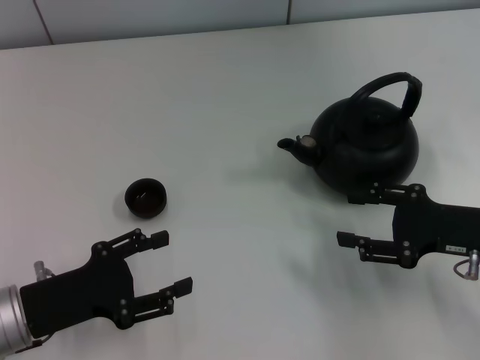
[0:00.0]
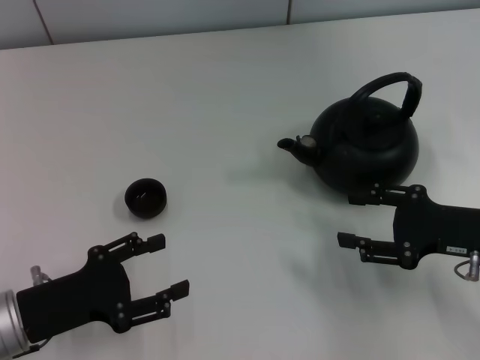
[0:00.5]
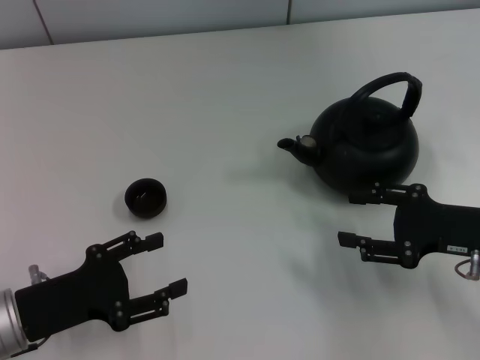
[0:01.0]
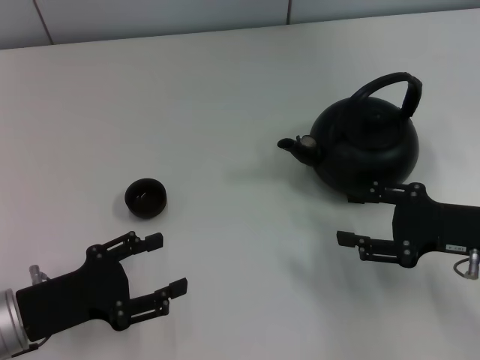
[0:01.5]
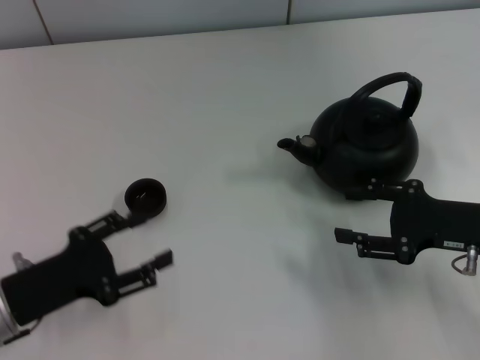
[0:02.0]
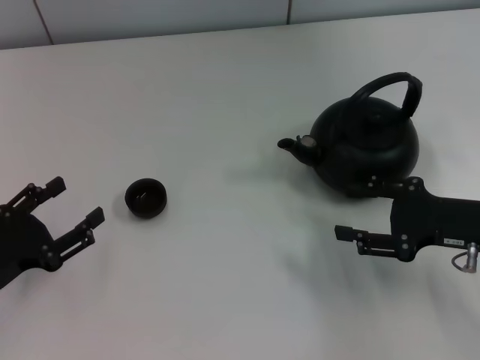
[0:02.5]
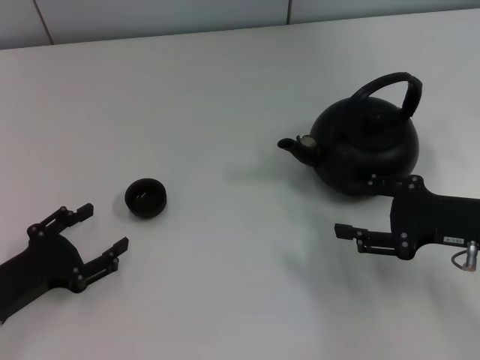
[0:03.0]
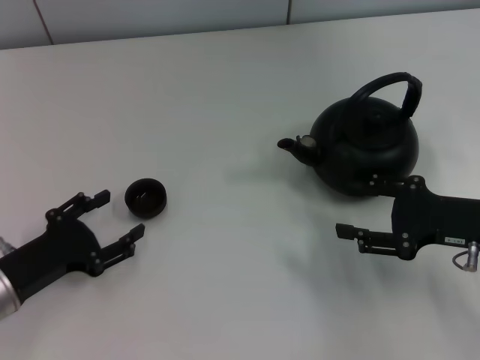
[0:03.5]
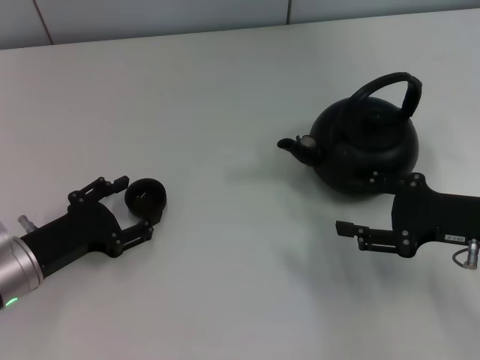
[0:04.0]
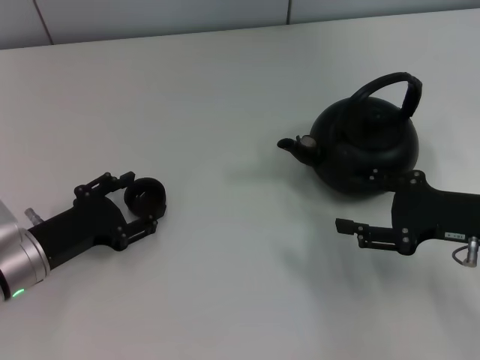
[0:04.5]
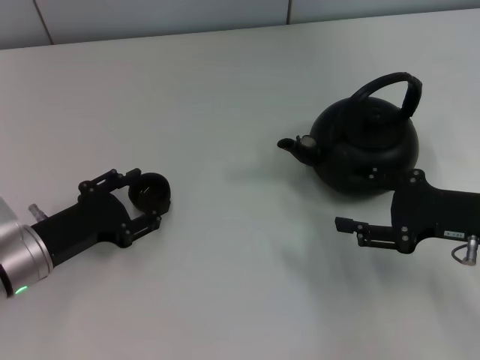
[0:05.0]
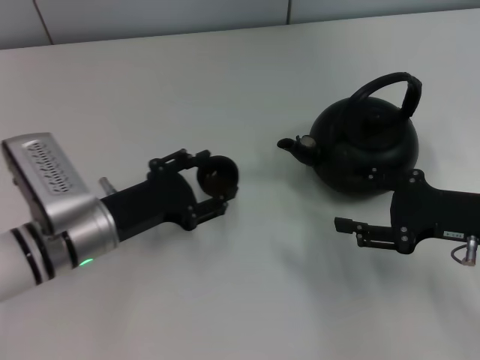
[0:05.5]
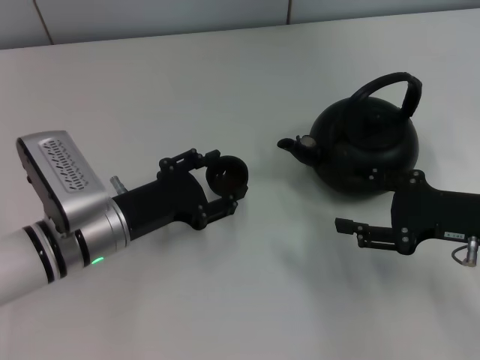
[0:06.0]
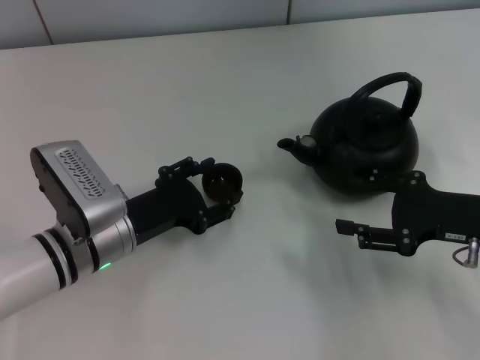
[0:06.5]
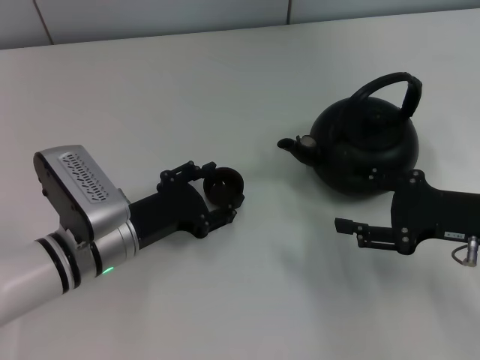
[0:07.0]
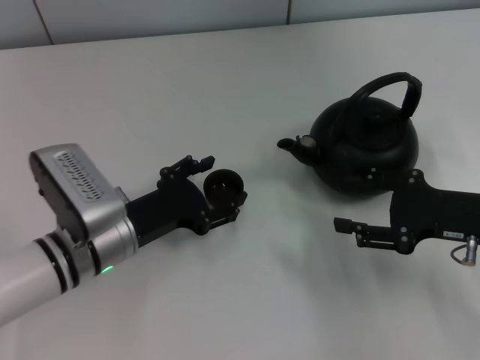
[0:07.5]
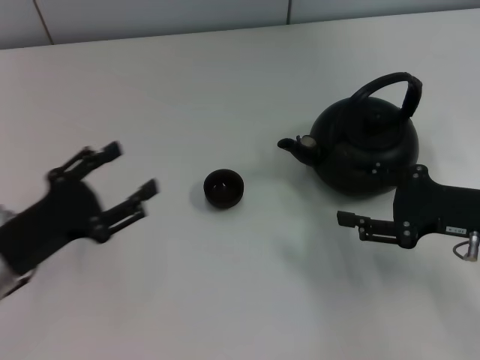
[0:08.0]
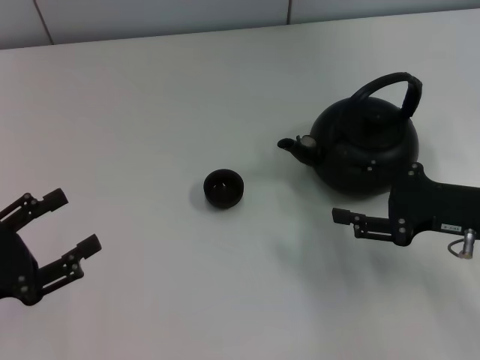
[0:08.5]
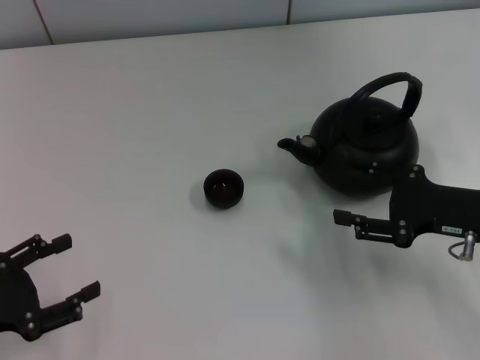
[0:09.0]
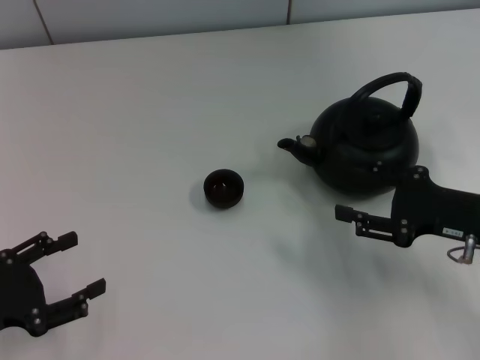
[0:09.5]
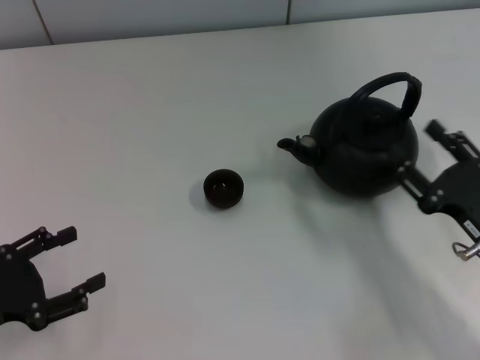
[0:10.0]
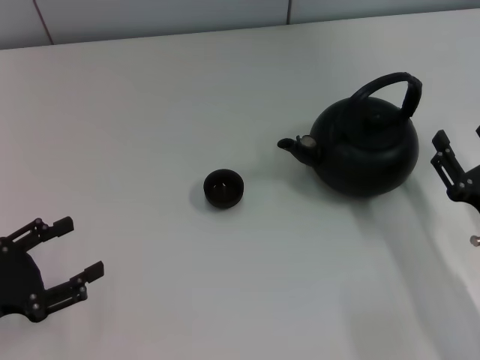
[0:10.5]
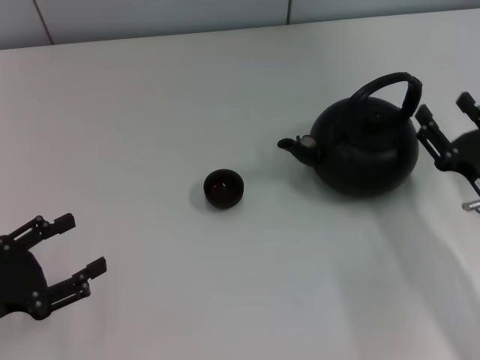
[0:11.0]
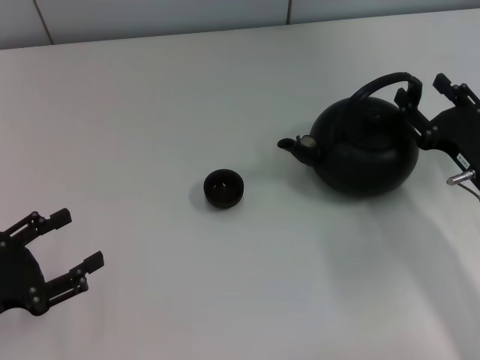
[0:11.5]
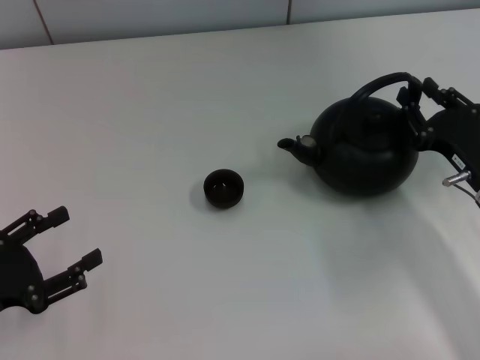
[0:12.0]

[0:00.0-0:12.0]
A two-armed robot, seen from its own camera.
Task of the whole recording: Grasp the handle of the teapot with one hand and pour tea into the teacup.
Step, 0:00.0 to 0:05.0: Pick up the teacup with the left gripper.
Step, 0:05.5 to 0:07.5: Place the teacup in the center of view with the left gripper.
0:00.0 to 0:02.0: There are only small adjustments of the grippers.
0:02.0 to 0:04.0: The left gripper moves roughly 5 cm.
0:04.0 to 0:06.0: The left gripper goes approximately 10 cm to the right.
0:06.0 to 0:08.0: The left gripper shifts approximately 10 cm to the left and backward.
0:08.0 to 0:10.0: The left gripper is displaced to the left by about 5 cm. The right gripper moves backward, approximately 5 cm.
0:10.0 to 0:12.0: The right gripper heads forward, covering approximately 5 cm.

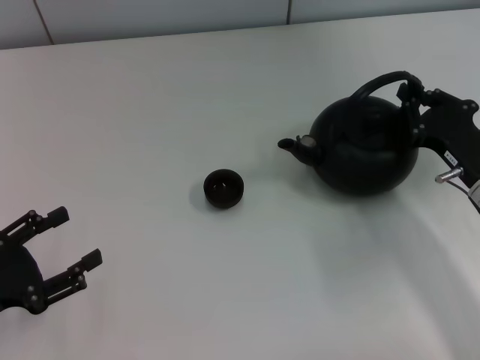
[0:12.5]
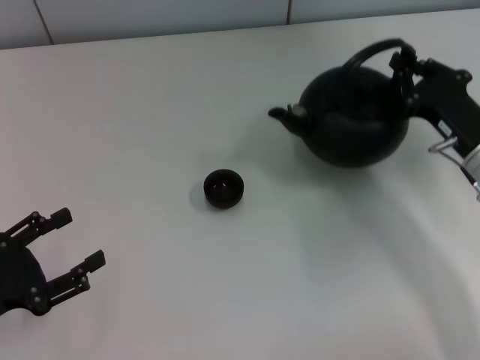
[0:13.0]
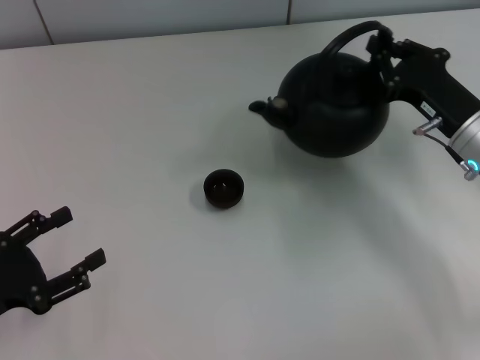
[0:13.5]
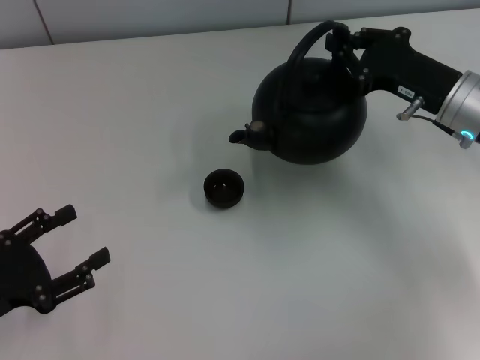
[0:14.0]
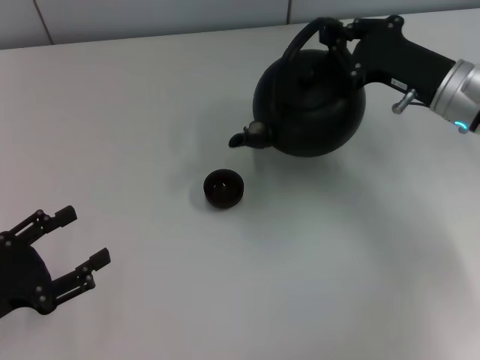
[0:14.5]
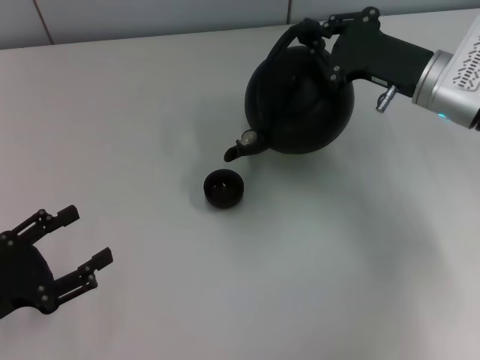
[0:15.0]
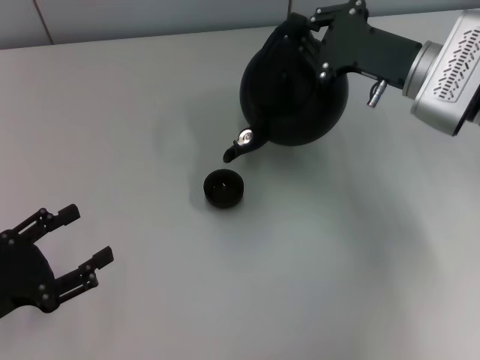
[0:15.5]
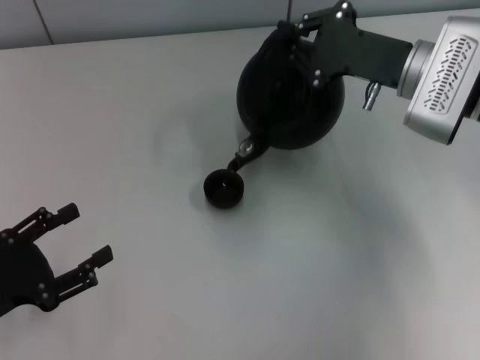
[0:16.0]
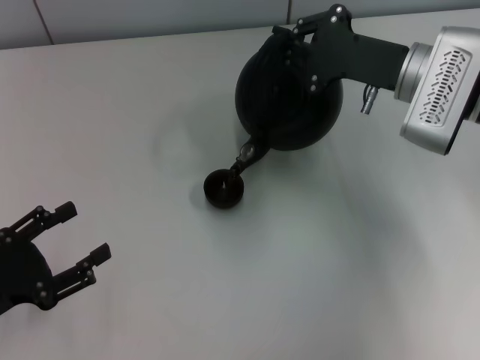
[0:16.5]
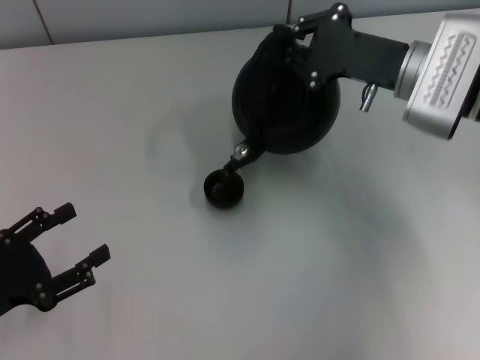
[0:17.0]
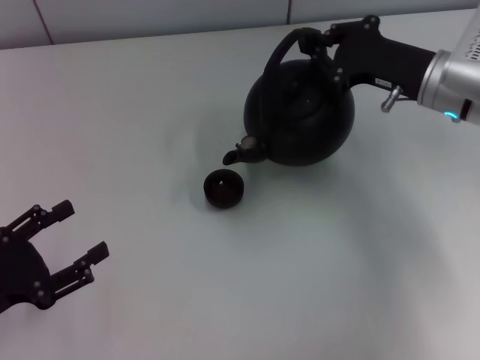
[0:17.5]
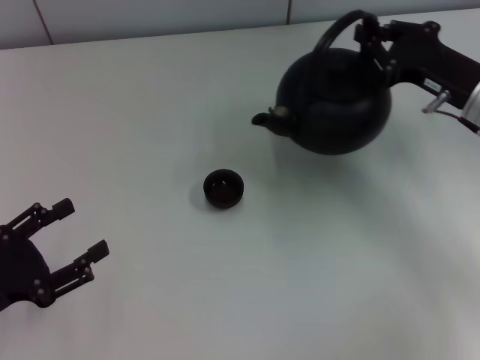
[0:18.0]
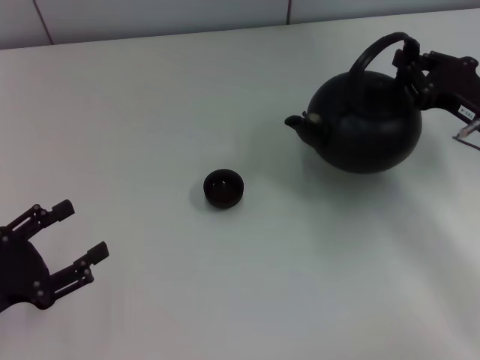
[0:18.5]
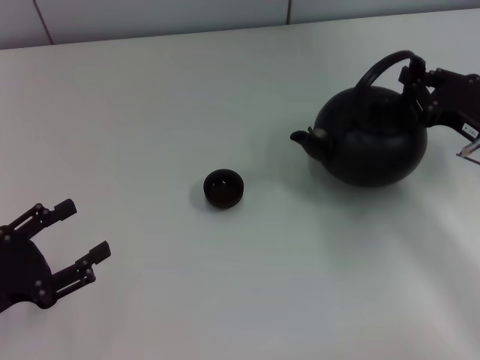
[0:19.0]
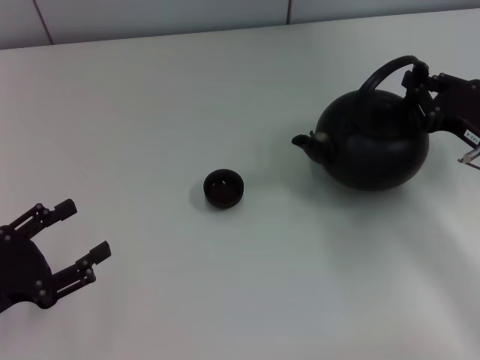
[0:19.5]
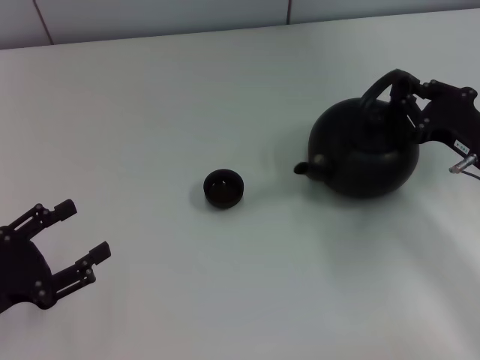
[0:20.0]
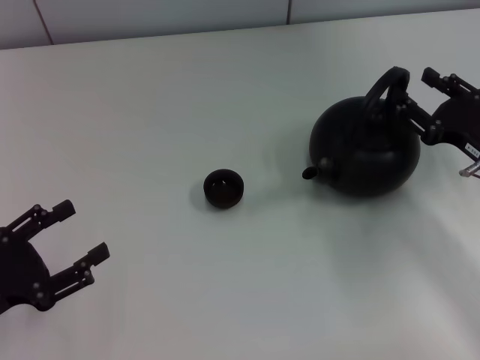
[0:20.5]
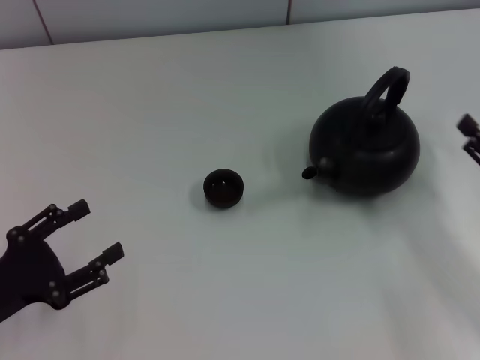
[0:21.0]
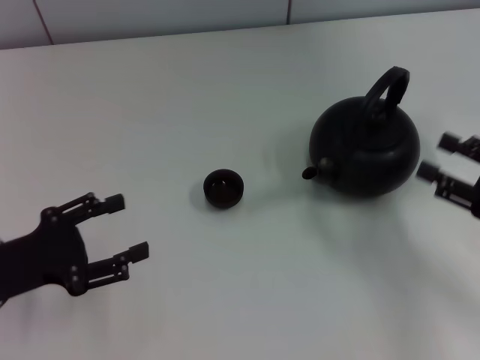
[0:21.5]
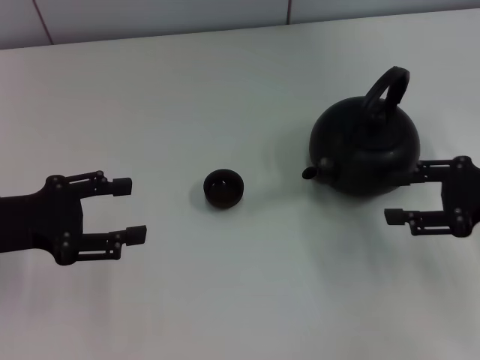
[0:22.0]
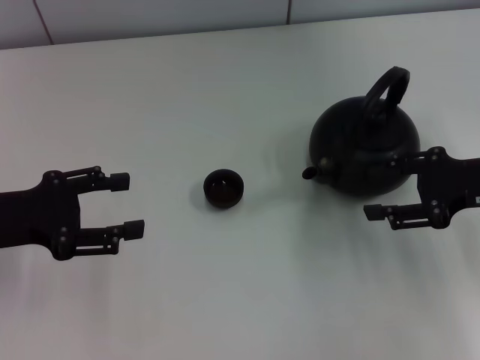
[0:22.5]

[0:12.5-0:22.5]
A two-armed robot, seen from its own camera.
Task of the whole recording: Grasp the handle of the teapot with one hand and pour tea into the teacup.
Step, 0:18.5 to 0:20.5: Put down the teapot with the right gripper.
0:12.5 to 0:14.5: The right gripper shifts about 10 cm forward and upward.
0:16.5 to 0:18.5: The right gripper goes approximately 10 cm to the right and backward.
0:18.5 to 0:20.5: The right gripper opens its fingers.
0:20.5 to 0:22.5: The right gripper is displaced upward by some 5 cm, moves some 10 cm backward and comes back, and opens its fingers, while the left gripper shifts some 10 cm forward and upward.

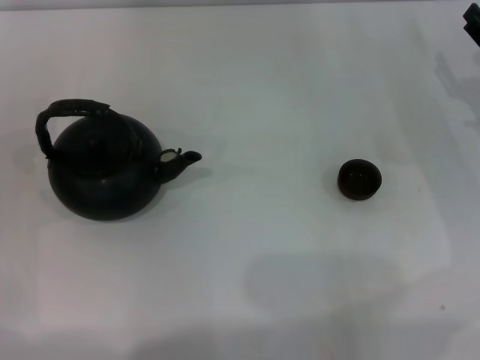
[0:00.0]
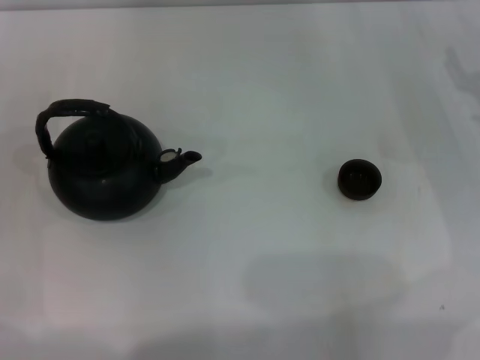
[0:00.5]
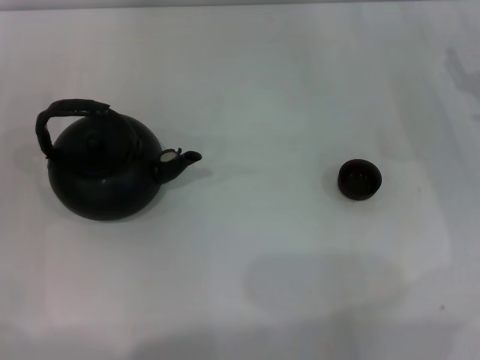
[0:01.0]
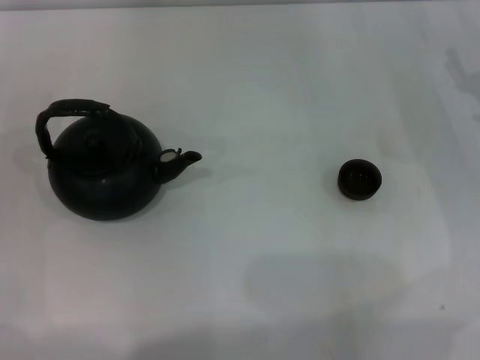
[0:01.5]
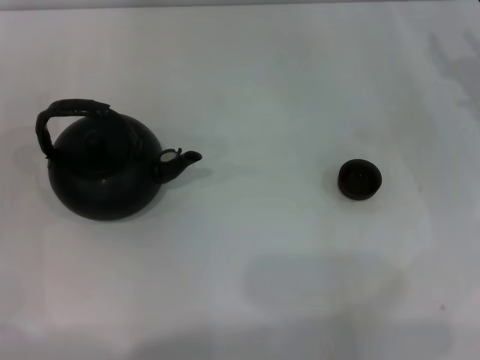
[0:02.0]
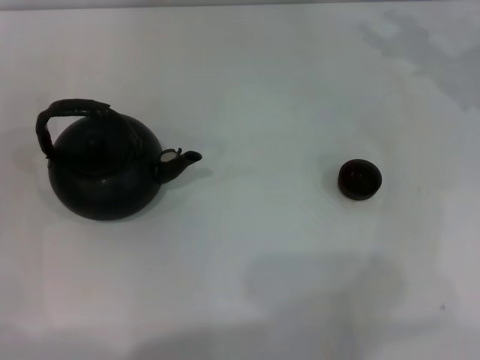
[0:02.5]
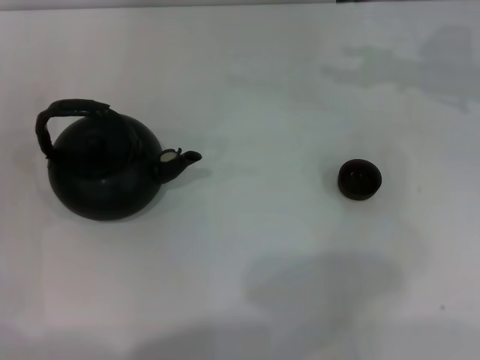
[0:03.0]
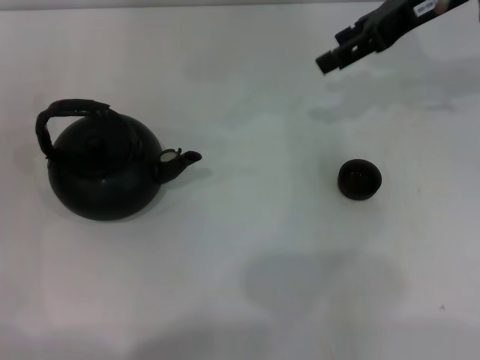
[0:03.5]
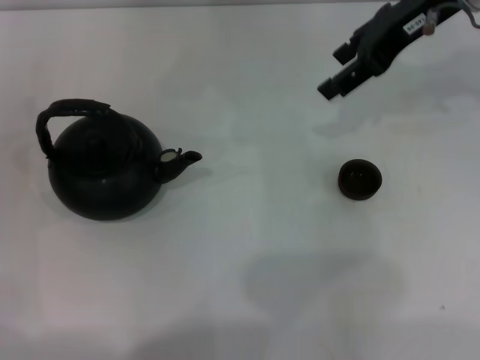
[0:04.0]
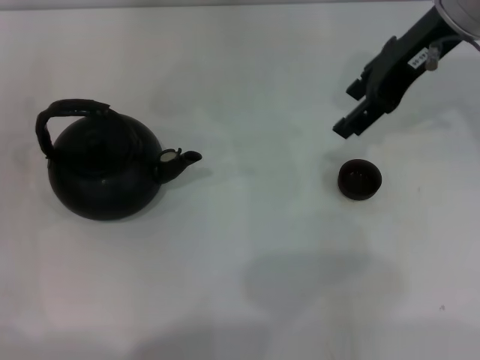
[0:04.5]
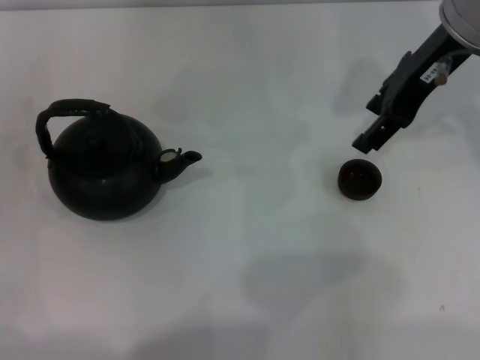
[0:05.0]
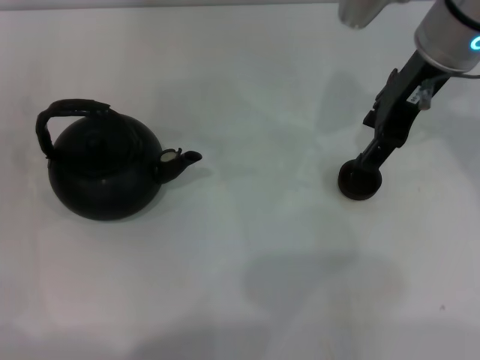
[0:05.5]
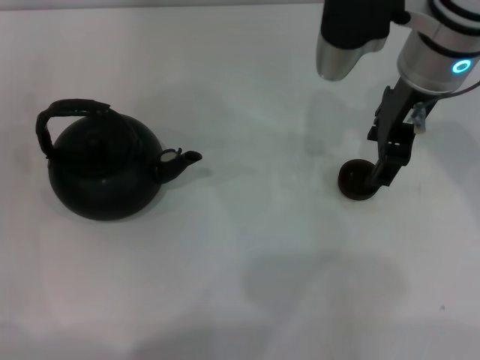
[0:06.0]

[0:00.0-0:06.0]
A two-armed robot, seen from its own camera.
Task of the whole recording: Grasp the handle of the teapot with one hand and pour tea into the teacup.
0:02.0 to 0:04.0: The right gripper travels upward and to the left by about 20 cm.
0:04.0 to 0:06.0: The right gripper is displaced to the left by about 5 cm.
